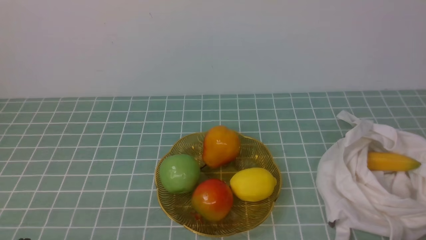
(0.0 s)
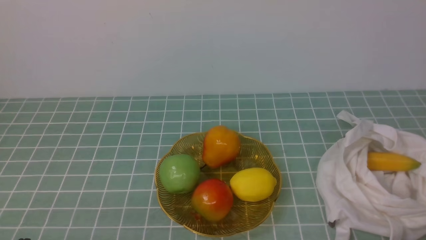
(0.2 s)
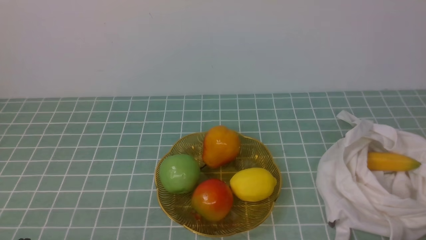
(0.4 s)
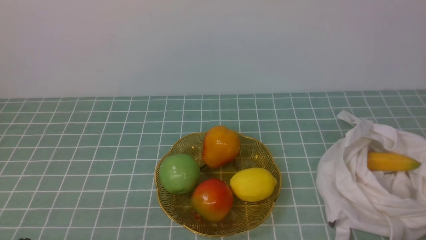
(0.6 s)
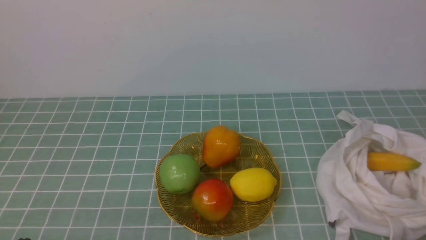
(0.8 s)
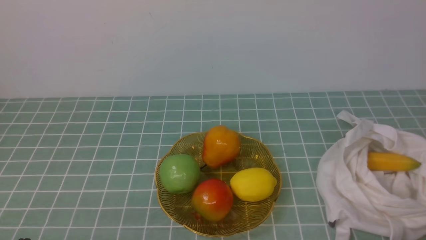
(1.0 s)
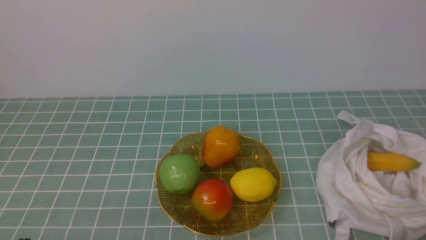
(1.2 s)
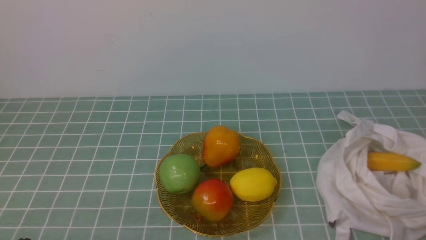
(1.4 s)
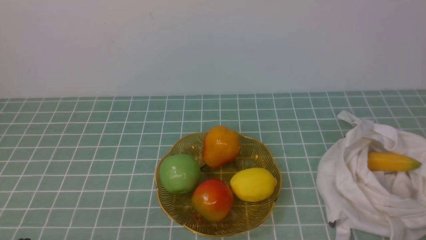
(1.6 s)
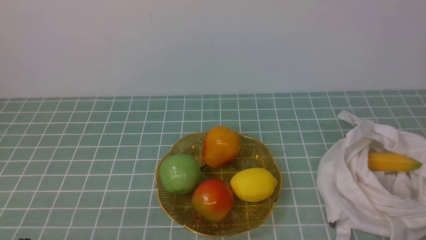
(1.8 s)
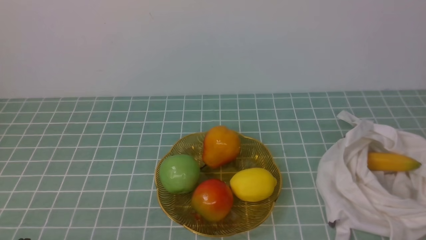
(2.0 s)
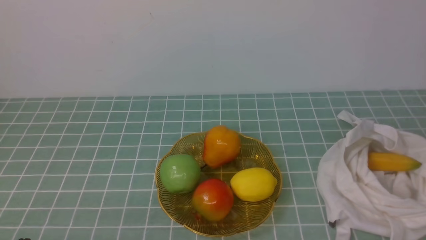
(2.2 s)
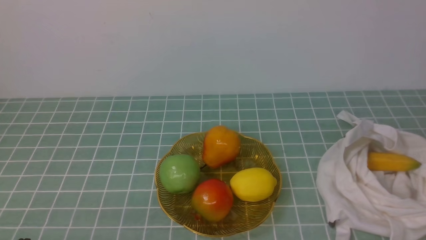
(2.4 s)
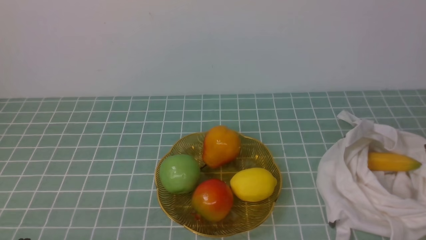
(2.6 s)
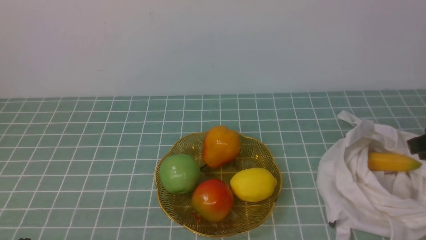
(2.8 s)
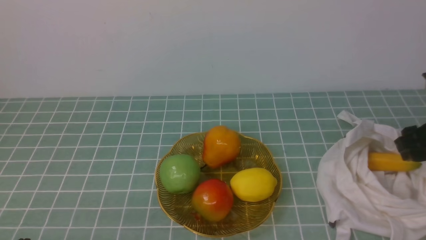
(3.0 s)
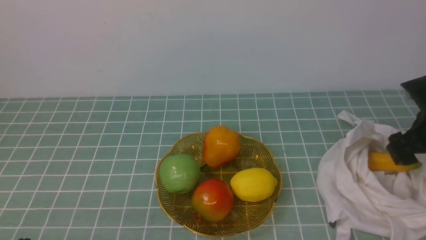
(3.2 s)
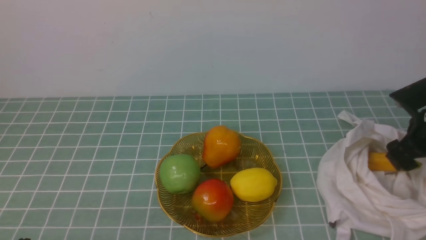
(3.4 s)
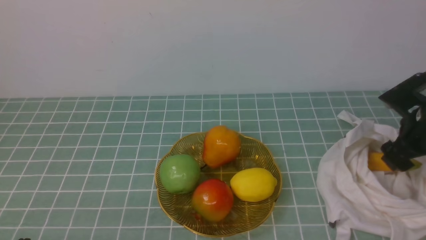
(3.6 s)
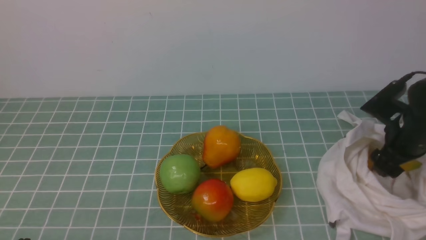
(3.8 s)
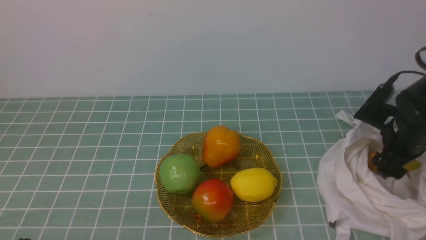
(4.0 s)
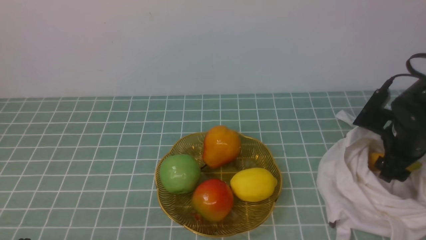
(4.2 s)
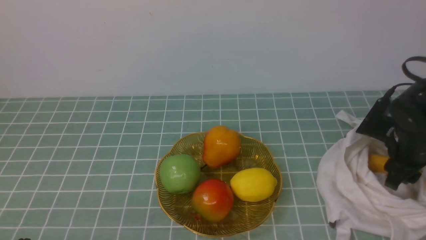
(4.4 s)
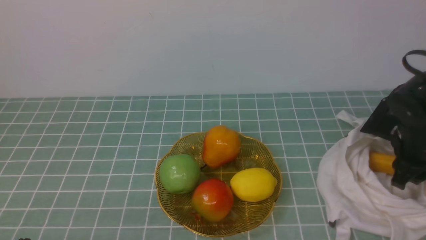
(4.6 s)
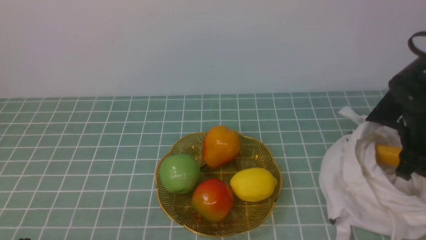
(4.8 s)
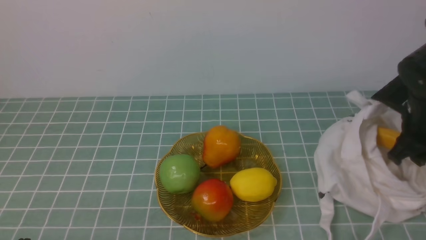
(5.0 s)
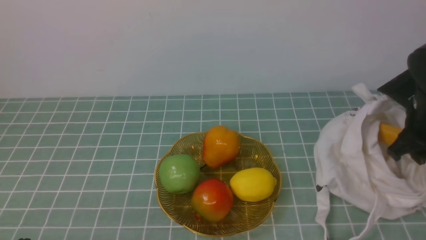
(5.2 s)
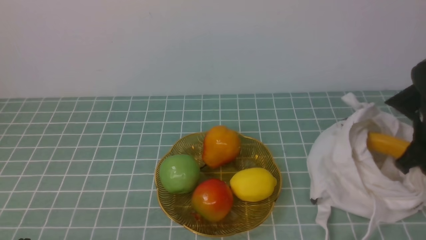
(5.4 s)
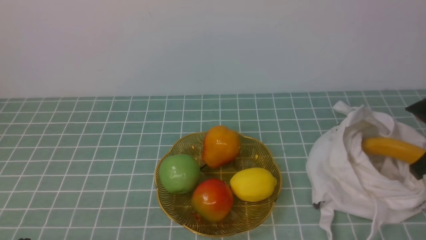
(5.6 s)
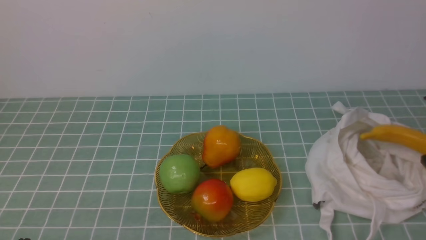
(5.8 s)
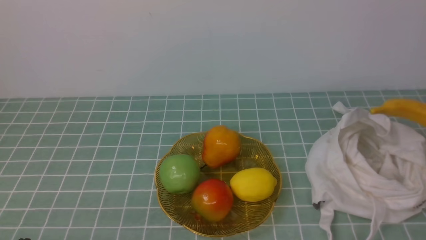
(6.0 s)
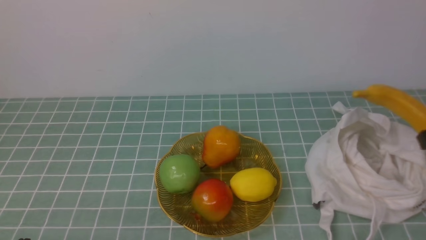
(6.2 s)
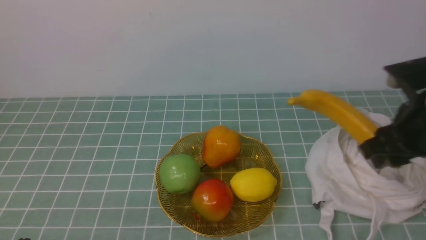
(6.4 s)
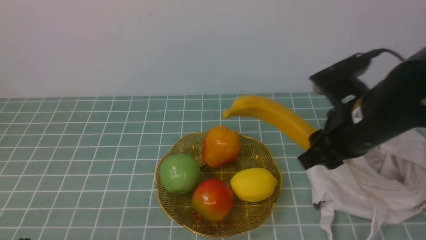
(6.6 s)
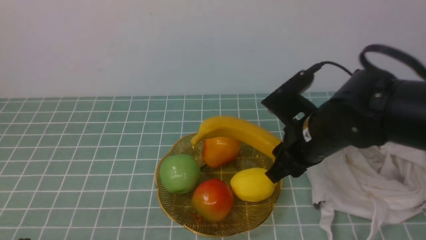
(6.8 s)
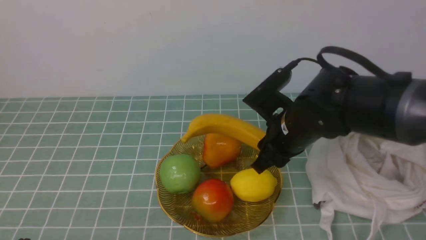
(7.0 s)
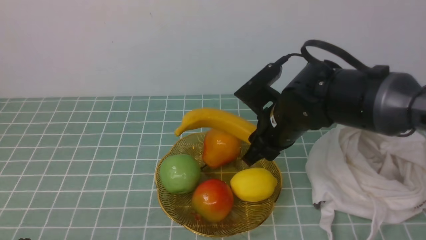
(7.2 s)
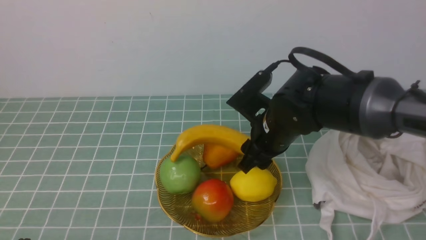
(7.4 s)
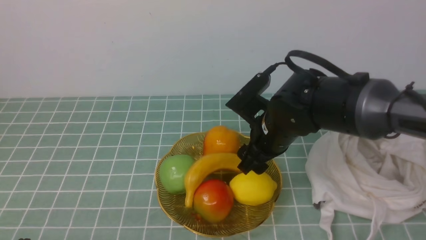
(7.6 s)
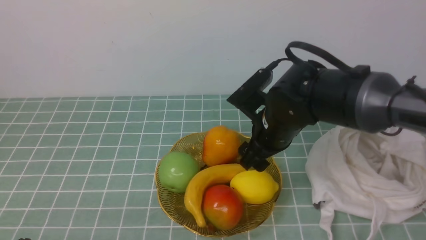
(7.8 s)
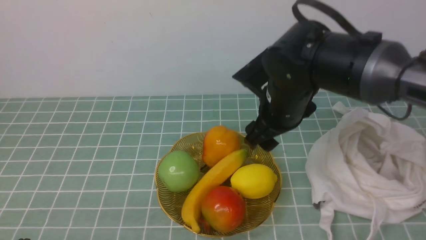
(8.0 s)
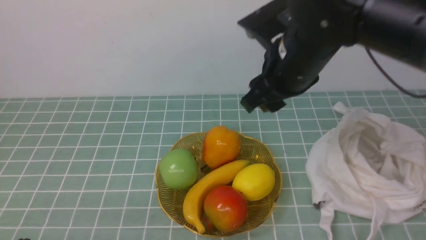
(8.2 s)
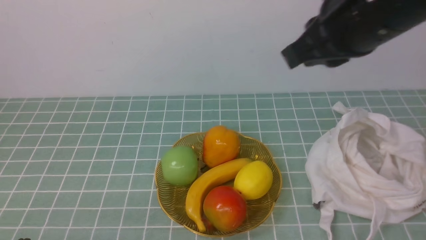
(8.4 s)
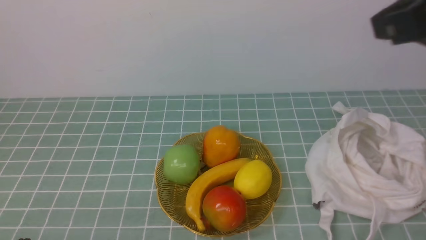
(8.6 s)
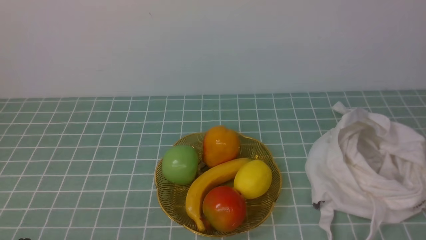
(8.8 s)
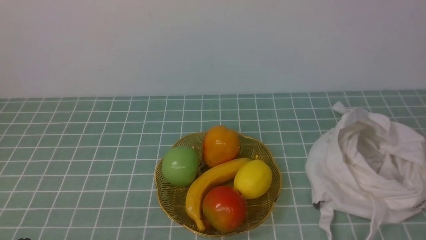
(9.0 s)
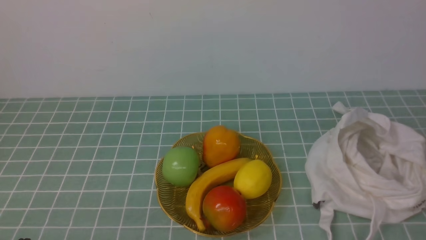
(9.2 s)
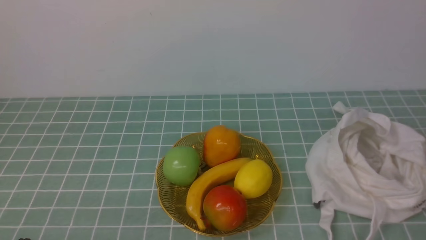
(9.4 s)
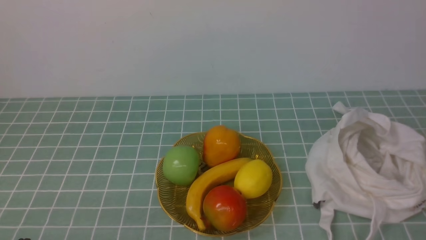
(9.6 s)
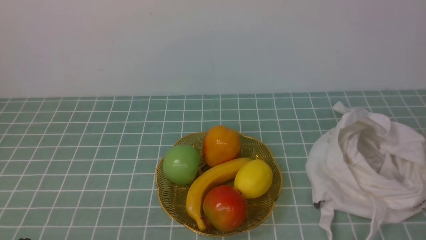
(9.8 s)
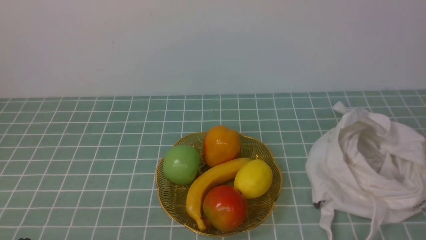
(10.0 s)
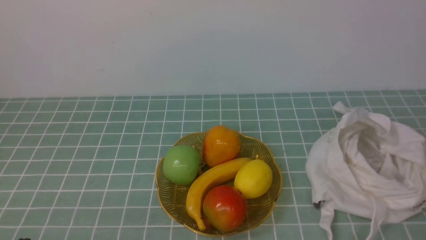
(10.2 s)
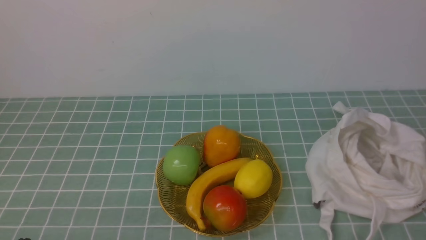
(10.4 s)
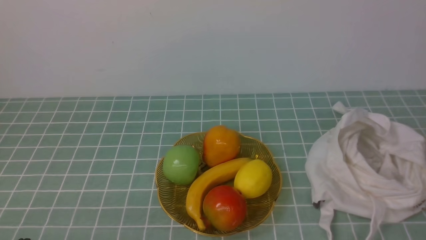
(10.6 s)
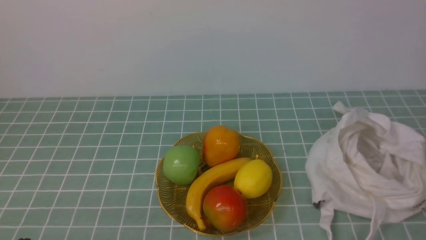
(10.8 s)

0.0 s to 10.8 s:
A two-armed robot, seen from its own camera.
Step, 0.0 to 5.0 s: use the right arm to grab a banana from the bag.
Step, 5.2 to 7.6 s: use the right arm to put the banana into the empty plate on the right.
1.6 to 3.0 s: The right gripper goes roughly 25 cm forward, and opens up.
3.0 to 4.6 s: The right gripper travels downward by about 5 cm.
4.6 to 6.2 s: The right gripper goes roughly 15 cm upward and backward.
6.2 to 7.8 s: The right gripper shifts roughly 20 cm to the left, and opens its fingers.
7.8 to 9.2 s: The right gripper moves backward, to the right and upward, about 40 cm, and closes up.

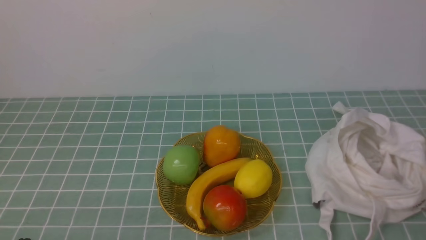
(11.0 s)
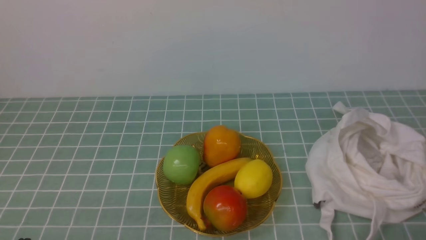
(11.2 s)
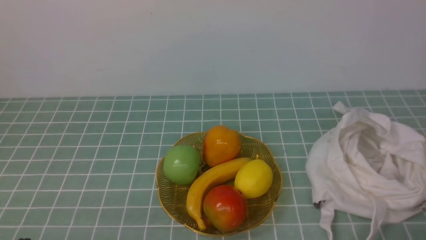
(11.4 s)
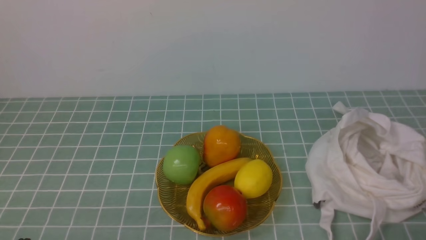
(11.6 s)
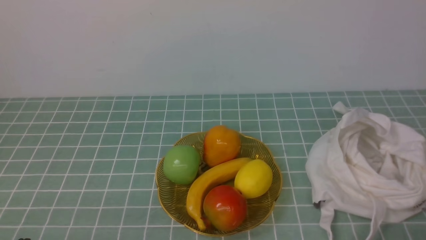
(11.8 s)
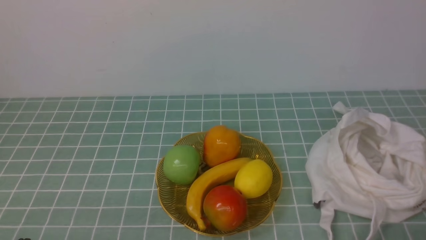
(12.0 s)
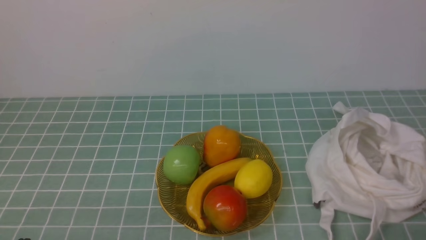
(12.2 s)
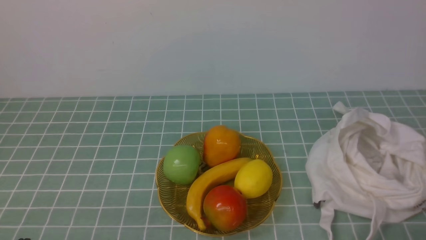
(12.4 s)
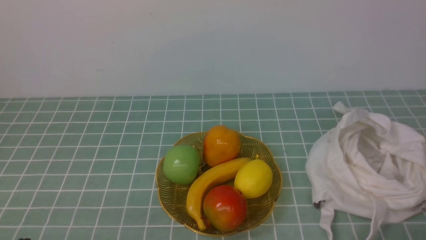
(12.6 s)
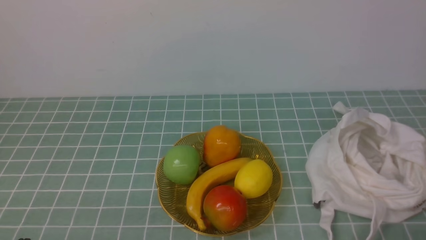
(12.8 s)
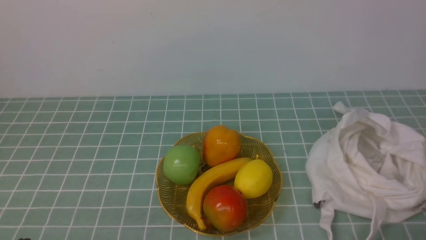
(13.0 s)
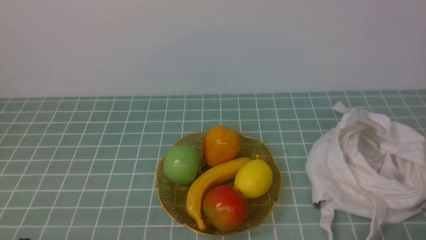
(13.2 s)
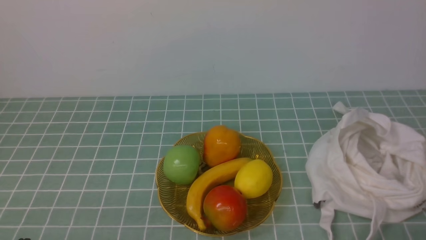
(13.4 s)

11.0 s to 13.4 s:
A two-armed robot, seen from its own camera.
12.2 to 13.4 s: Both grippers stay about where they are.

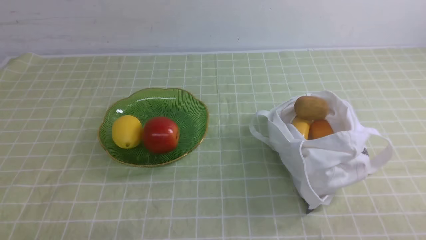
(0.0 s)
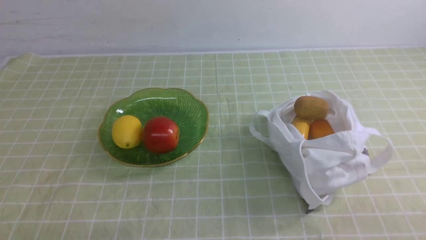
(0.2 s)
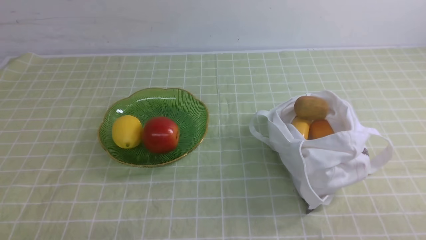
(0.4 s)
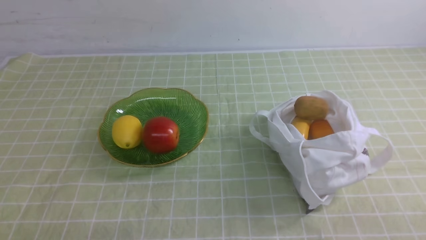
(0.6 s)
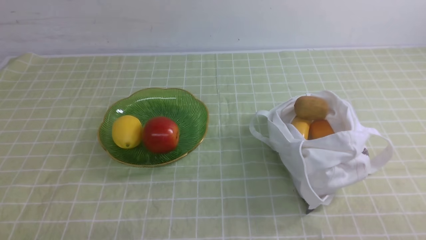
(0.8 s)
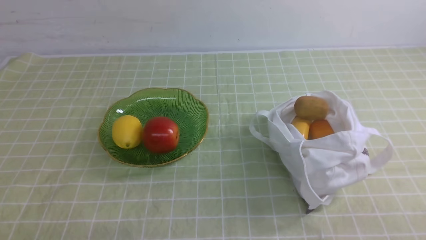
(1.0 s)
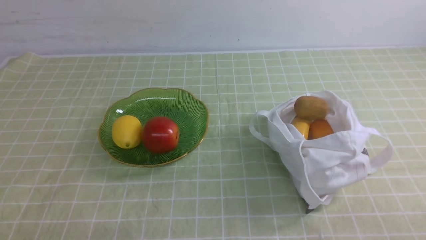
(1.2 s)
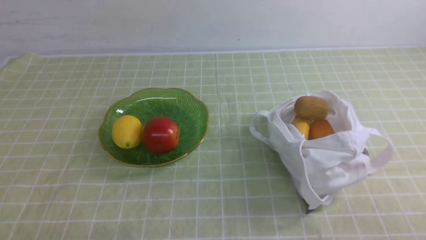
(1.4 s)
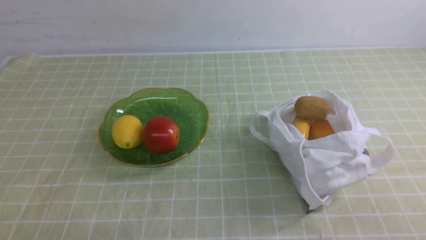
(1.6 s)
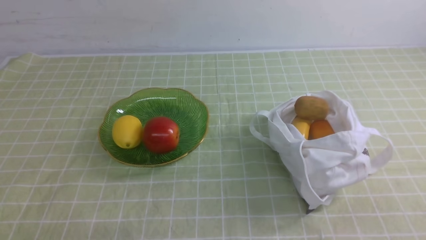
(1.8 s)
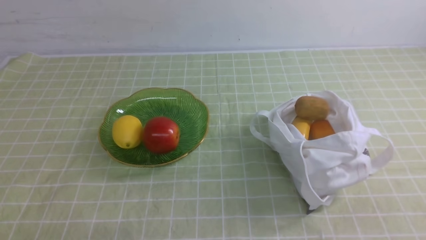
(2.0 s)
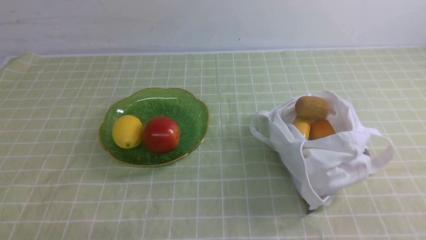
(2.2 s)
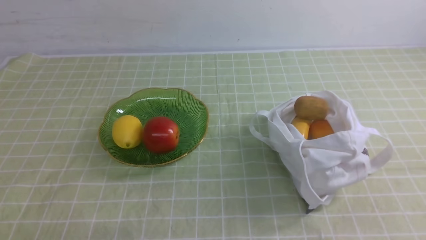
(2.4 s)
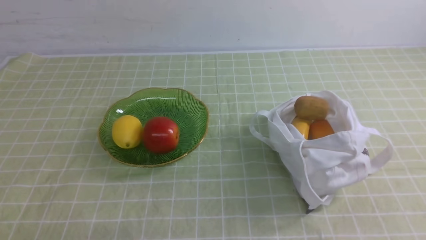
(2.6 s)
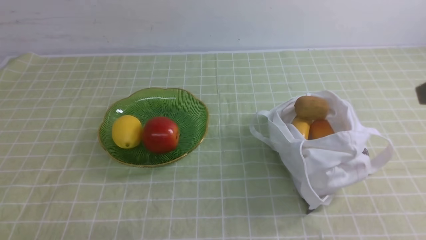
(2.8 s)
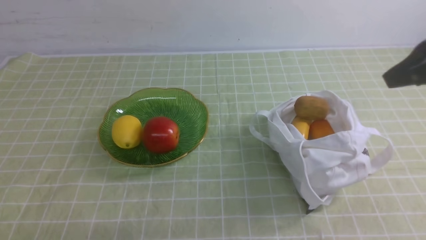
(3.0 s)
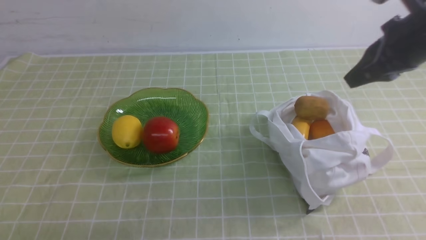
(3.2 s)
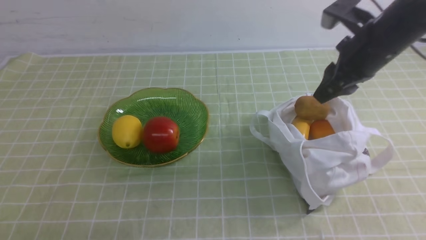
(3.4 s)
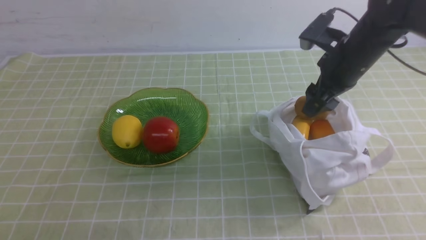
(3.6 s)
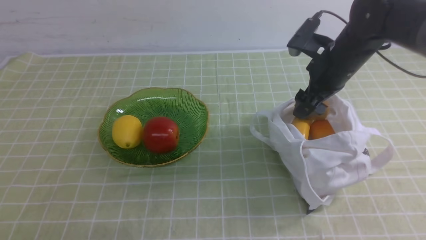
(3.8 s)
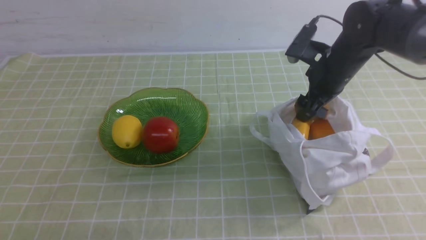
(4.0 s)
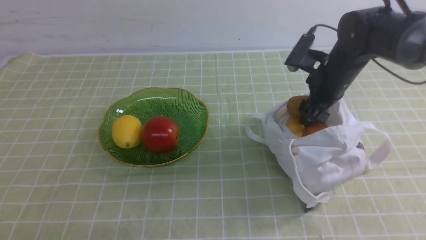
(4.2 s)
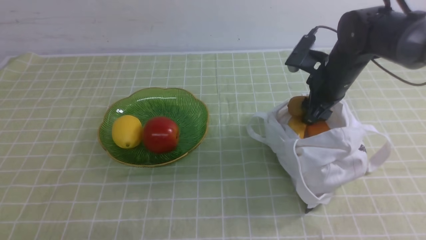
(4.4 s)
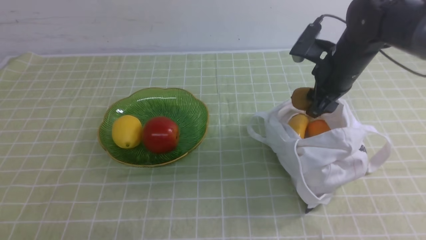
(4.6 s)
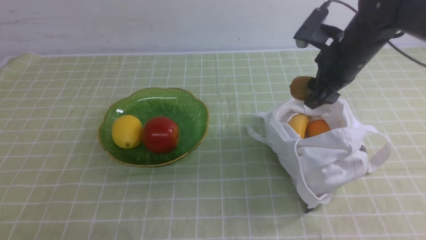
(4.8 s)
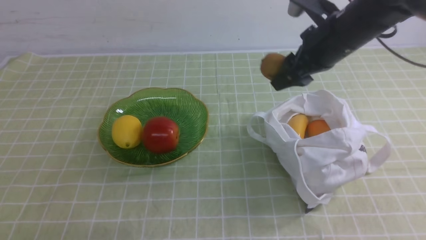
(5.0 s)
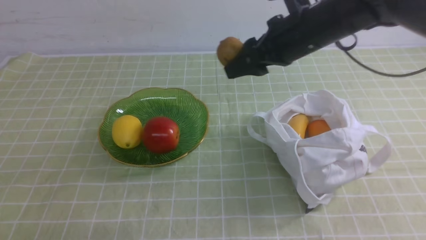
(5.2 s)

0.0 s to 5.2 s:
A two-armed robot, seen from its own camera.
Step, 0.0 to 4.4 s: use the right arm to grab a kiwi from the bag.
1.8 to 3.4 s: The right gripper is displaced forward by about 35 cm, and opens up.
3.4 to 5.2 s: The right gripper moves to the left, approximately 10 cm.
